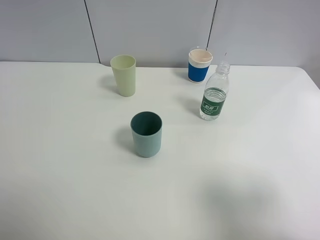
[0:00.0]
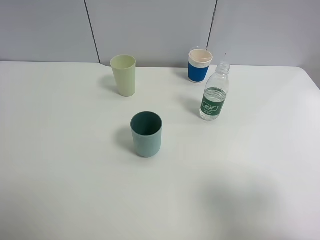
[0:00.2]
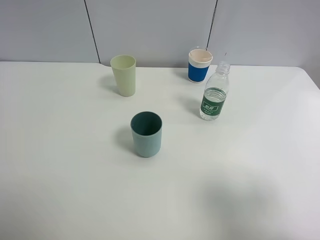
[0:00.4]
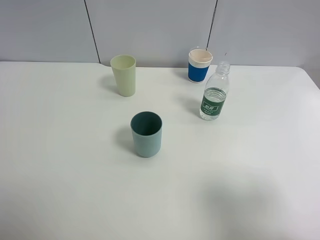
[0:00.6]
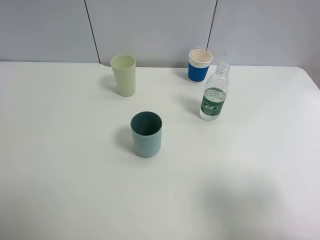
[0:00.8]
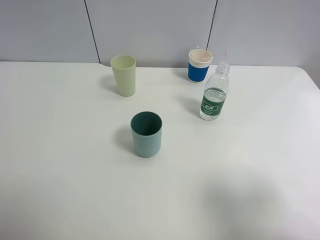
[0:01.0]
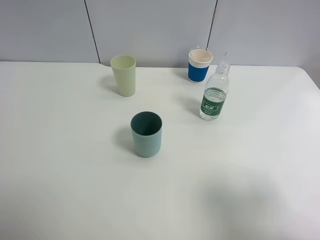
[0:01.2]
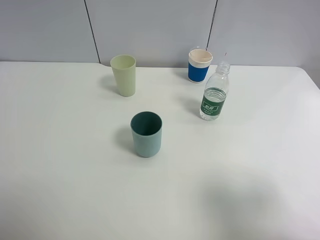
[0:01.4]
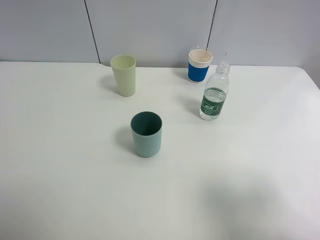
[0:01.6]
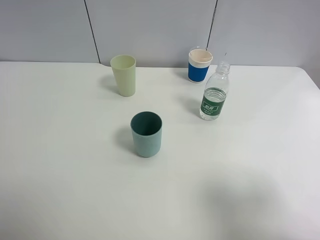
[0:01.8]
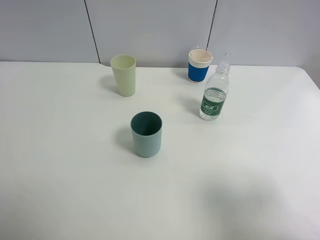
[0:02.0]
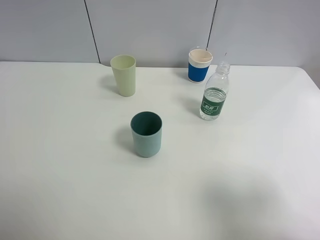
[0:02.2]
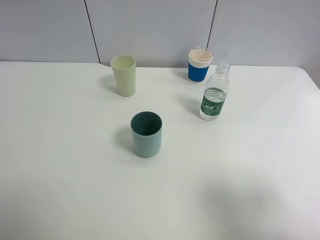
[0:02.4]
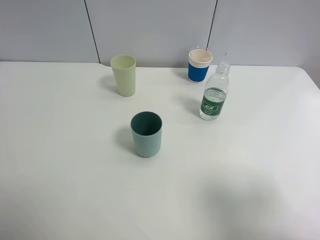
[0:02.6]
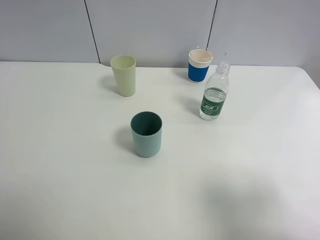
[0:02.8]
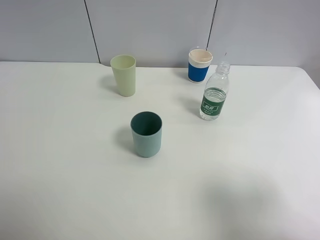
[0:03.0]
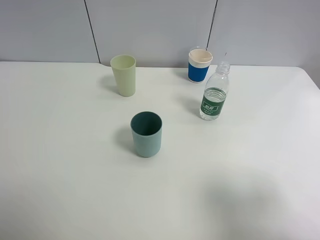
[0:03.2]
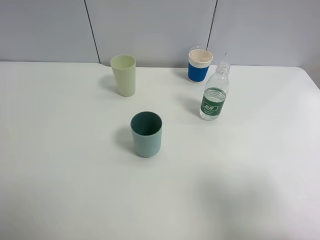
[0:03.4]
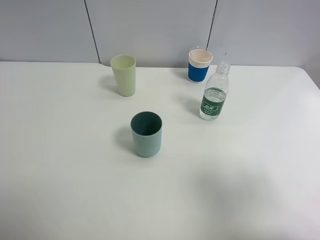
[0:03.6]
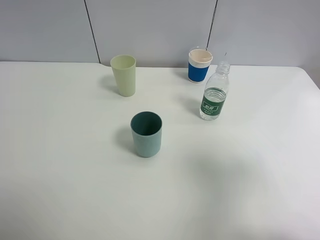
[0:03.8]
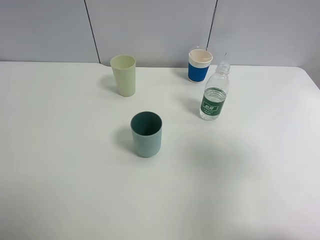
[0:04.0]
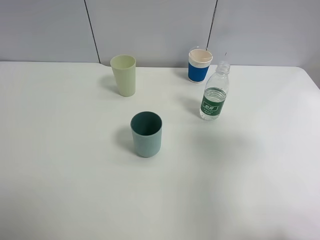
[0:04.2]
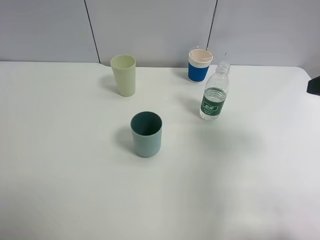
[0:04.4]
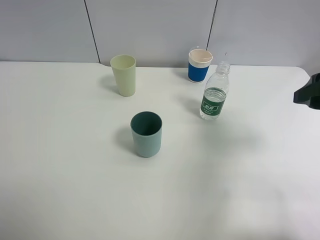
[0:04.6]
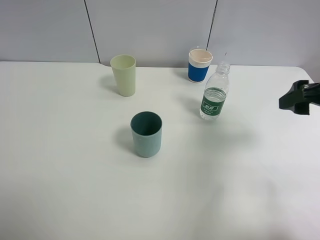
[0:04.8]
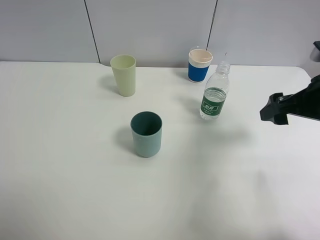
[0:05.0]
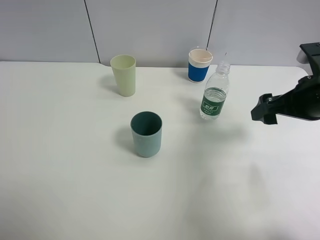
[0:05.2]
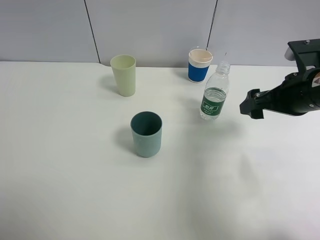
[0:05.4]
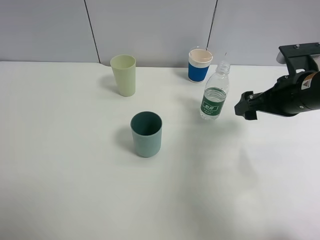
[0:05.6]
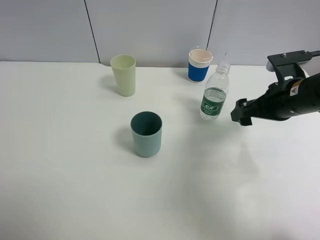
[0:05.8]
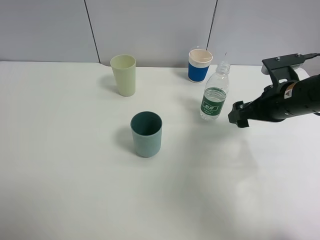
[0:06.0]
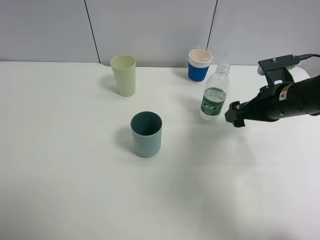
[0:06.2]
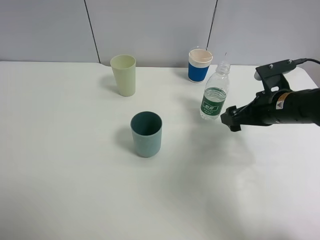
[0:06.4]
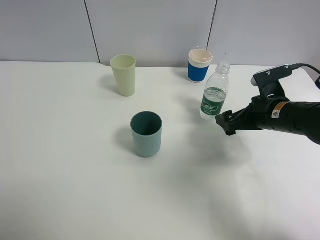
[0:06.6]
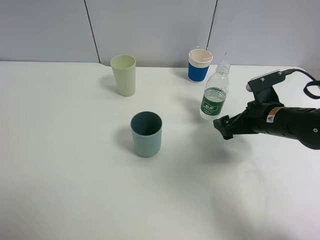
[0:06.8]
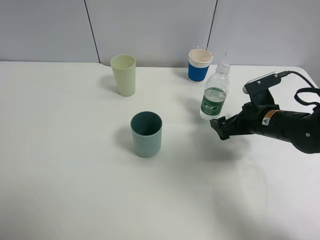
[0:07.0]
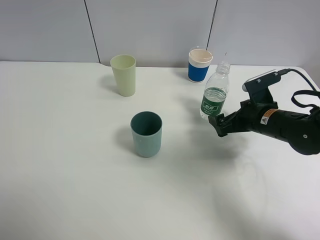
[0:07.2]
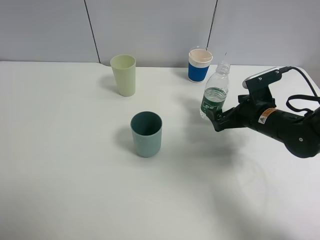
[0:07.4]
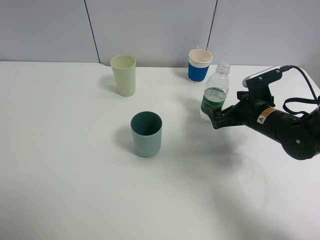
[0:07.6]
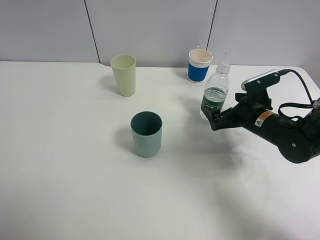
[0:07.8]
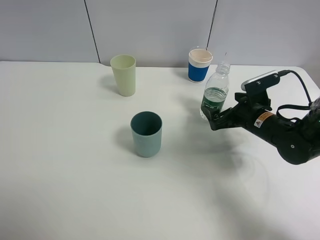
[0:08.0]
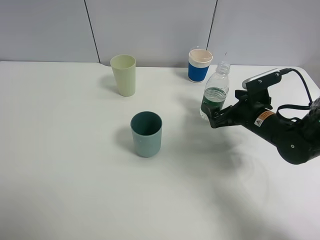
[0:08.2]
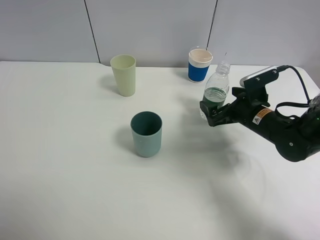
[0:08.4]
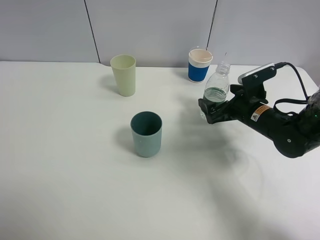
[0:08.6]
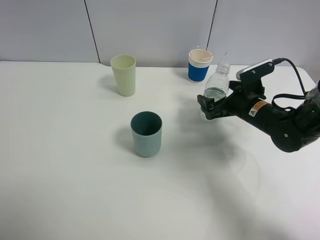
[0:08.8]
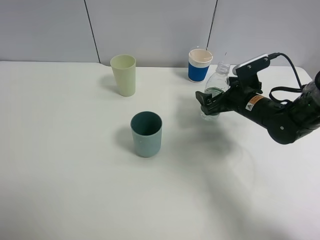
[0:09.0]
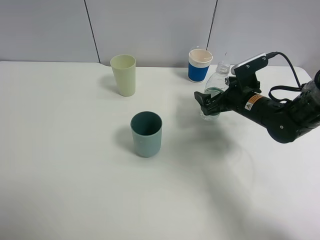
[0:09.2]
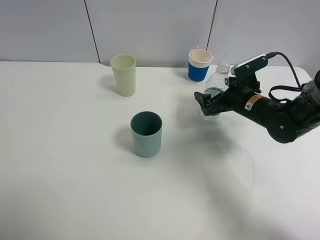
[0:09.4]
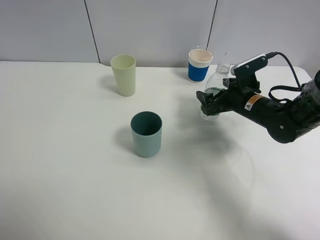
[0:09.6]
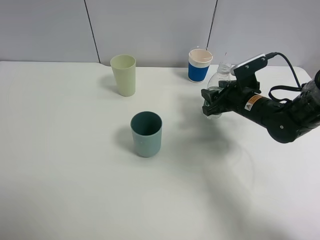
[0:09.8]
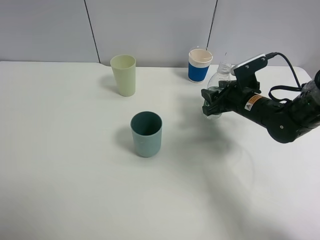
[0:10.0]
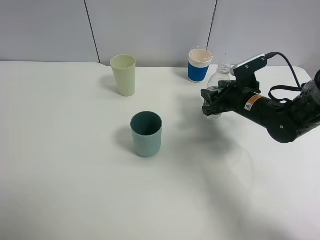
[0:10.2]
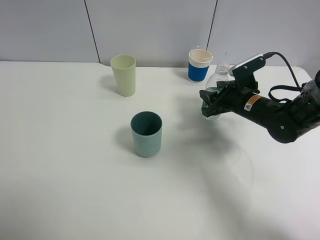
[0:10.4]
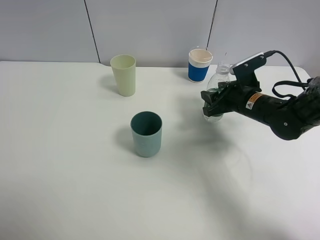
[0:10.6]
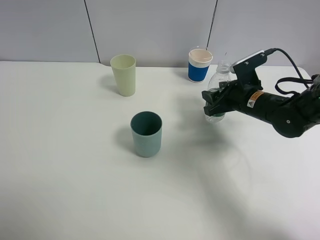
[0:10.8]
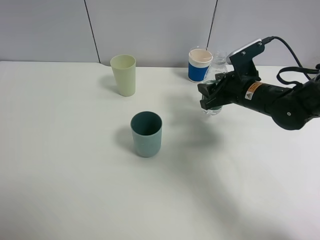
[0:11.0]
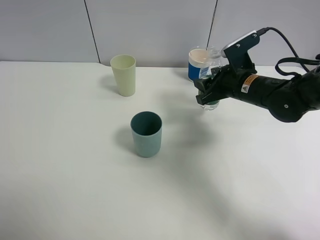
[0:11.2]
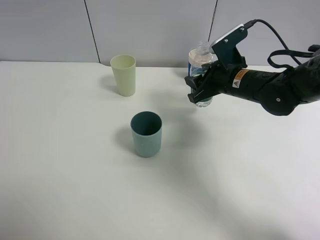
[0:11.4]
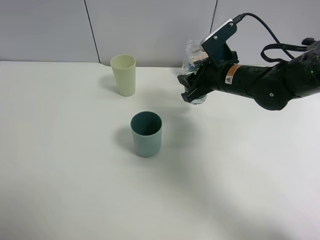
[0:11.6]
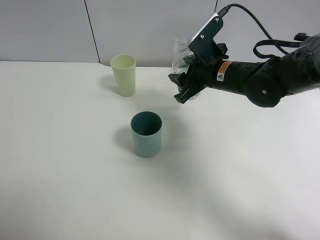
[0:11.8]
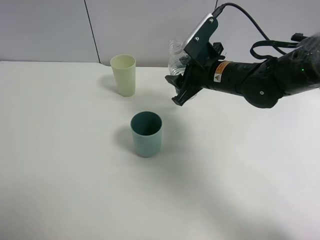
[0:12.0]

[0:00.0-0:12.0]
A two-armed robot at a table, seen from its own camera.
Task of the whole recording: use a clamp to hold the bottle of the drink, pour the beverage into a random cup, then clamp the cup containing the drink and pour the drink into another random cup.
Step, 0:00.0 to 0:10.4: Pick up the water bottle with right gripper.
0:00.0 to 0:03.0: The two grippers keep their place.
0:03.0 to 0:04.4: The right gripper goes approximately 15 cm forward.
0:04.4 to 0:06.0: The right gripper travels downward, forward and to the left by some 15 cm.
0:06.0 to 0:07.6: The right gripper goes about 5 cm downward.
0:07.6 to 0:09.0: The grippers stay close to where they were, moving slightly.
0:09.0 to 0:10.4: The right gripper closes its fingers.
0:10.4 to 0:12.0: The right gripper moves to the left and upward, approximately 10 cm.

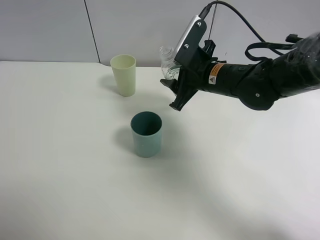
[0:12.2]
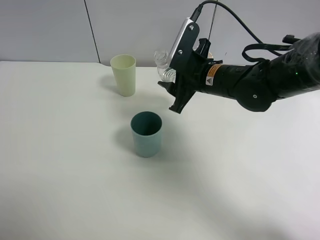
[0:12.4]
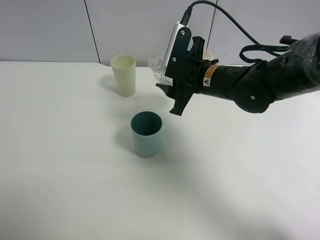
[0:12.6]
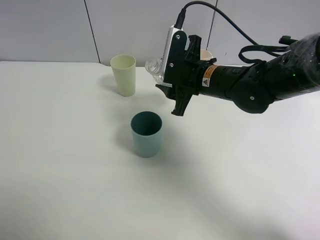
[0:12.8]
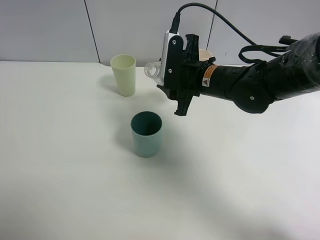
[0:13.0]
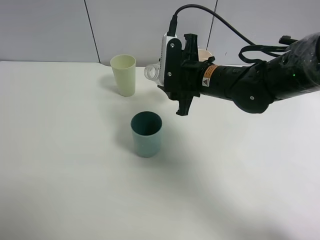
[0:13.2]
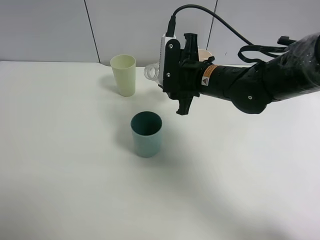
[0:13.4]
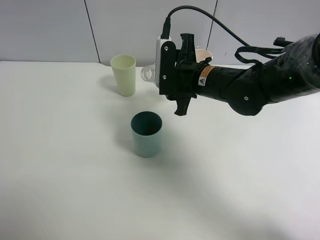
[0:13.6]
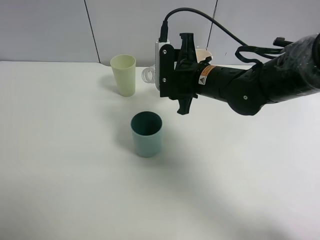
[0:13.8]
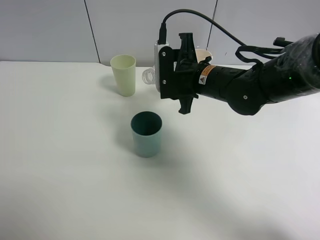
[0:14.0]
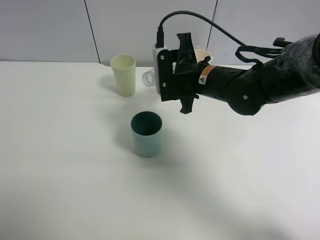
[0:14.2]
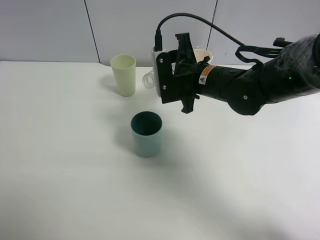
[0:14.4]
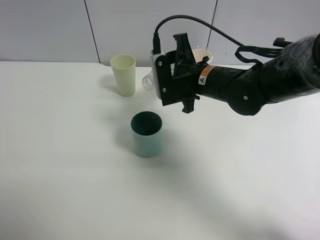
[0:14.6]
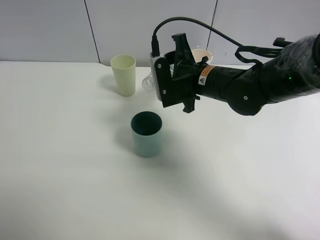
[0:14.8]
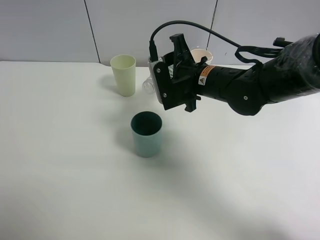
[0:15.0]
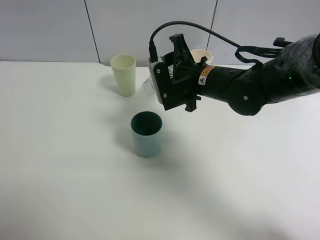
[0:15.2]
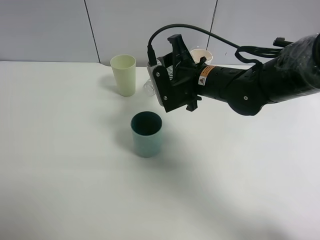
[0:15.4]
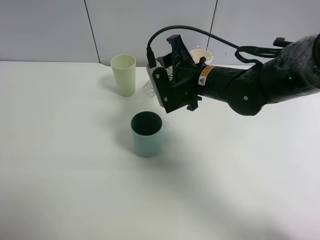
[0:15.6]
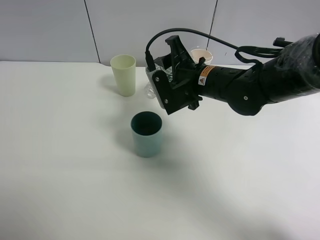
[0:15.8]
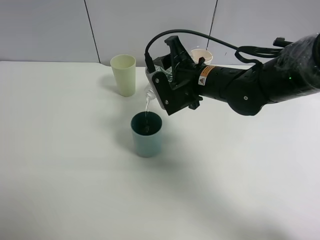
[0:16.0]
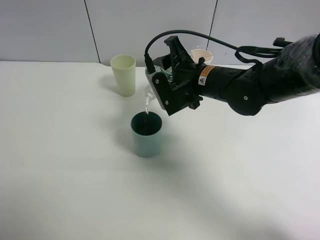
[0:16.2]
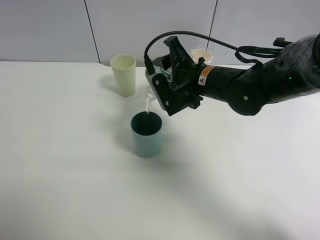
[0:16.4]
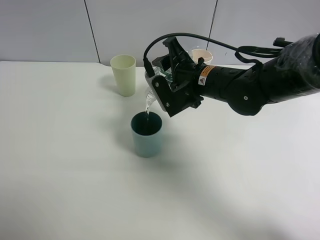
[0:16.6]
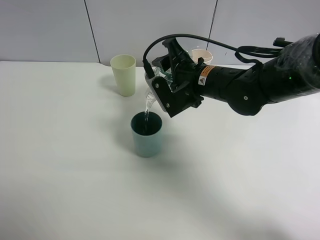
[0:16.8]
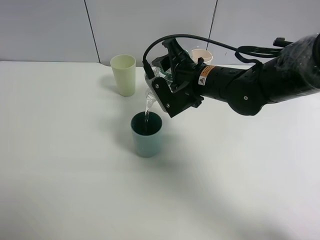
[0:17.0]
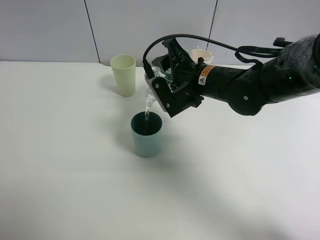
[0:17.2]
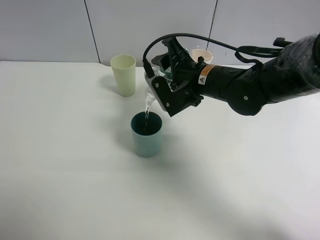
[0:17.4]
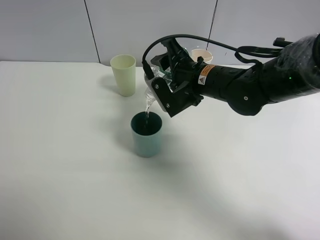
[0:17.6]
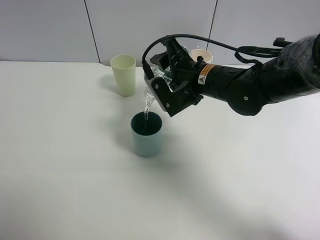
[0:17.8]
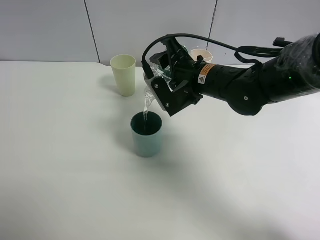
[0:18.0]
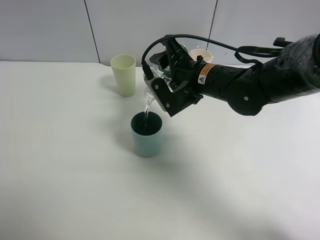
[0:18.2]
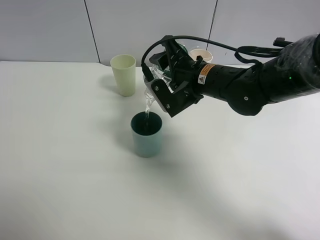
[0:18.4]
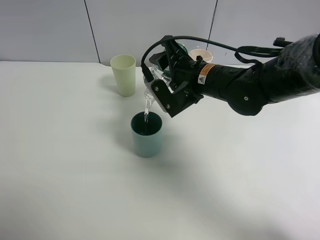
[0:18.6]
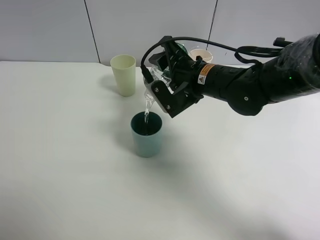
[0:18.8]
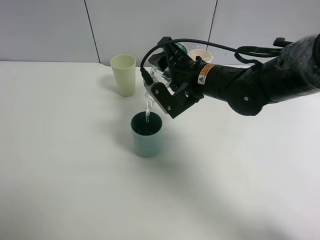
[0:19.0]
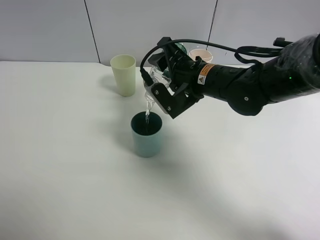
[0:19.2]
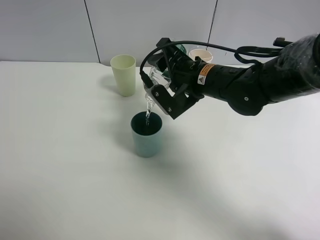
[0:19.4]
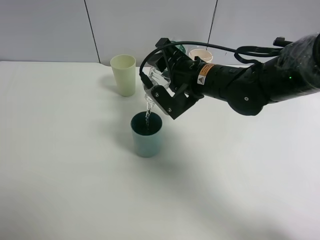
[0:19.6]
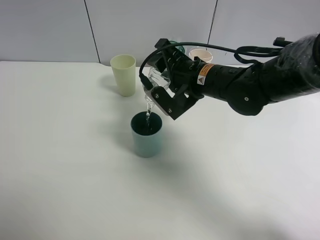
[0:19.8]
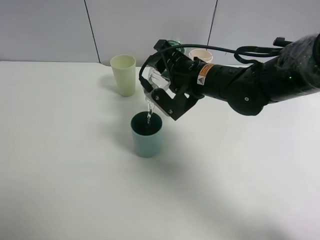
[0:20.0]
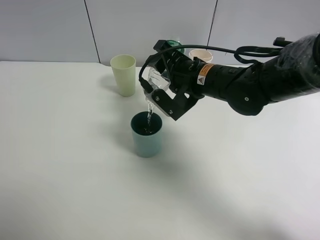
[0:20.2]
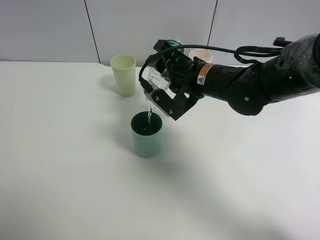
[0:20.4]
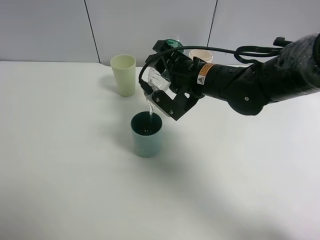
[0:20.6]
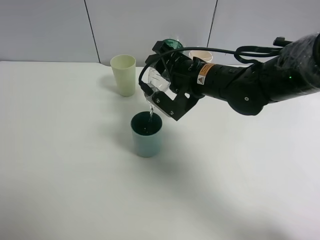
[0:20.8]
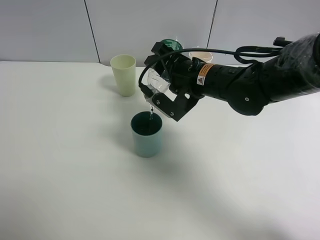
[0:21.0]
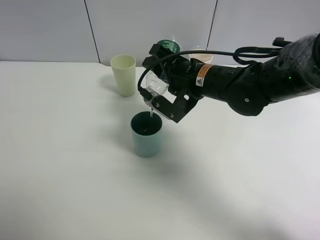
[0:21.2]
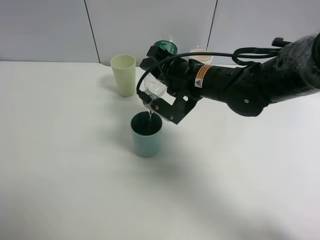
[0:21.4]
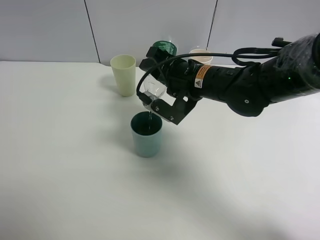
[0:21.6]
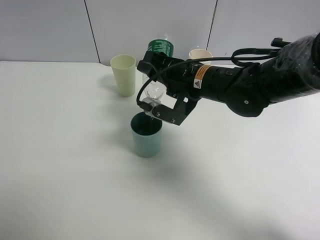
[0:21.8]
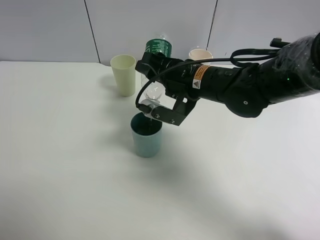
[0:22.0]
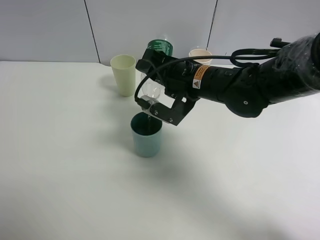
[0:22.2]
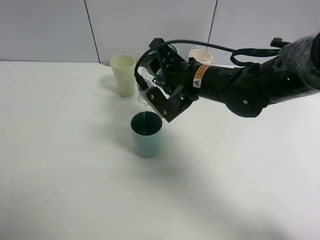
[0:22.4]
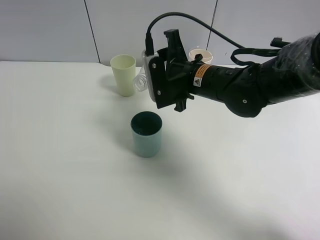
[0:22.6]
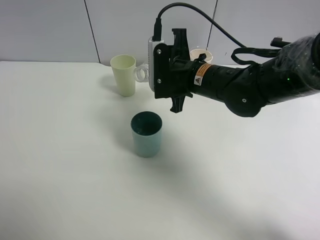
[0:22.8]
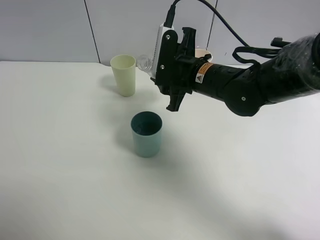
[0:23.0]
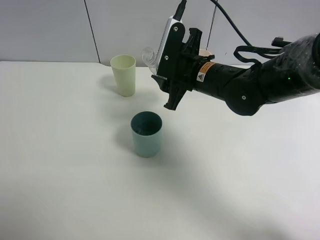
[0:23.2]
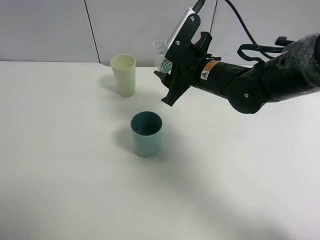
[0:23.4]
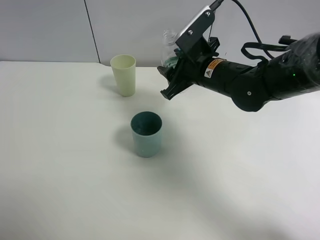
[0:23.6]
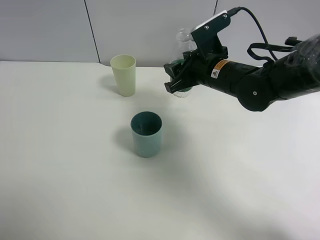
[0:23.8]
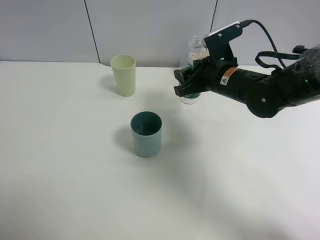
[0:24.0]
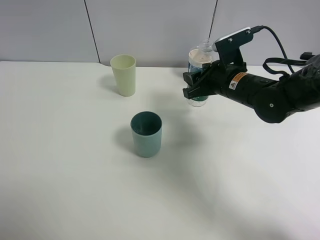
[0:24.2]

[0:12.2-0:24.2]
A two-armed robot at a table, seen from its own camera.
Task of the whole recording: use a clamp to hold the bottle of the drink, pour the beverage into a random cup, then clamp the cup containing the drink and pour the drink into another random cup.
Step, 0:12.2 to 0:22.6: Pour water into the blue plastic cup with right gripper.
0:13.8 to 0:15.2: The grippers make only small movements.
0:15.2 to 0:18.2: The grippers stay close to where they were, moving slightly.
0:18.2 to 0:21.2: The grippers stay close to where they were, moving slightly.
0:22.6 to 0:24.2: The right gripper shifts approximately 10 cm to the right.
